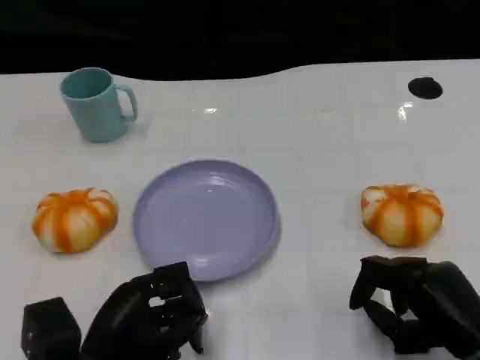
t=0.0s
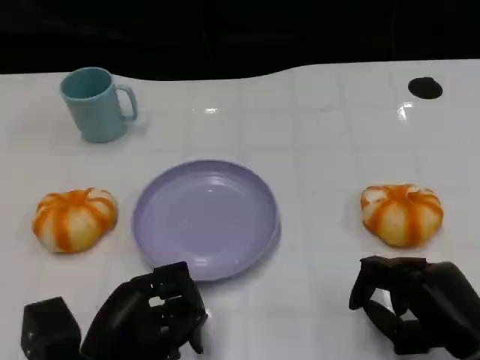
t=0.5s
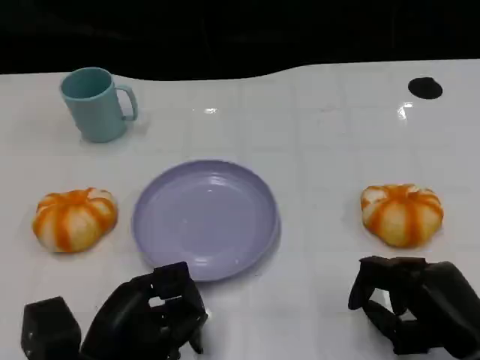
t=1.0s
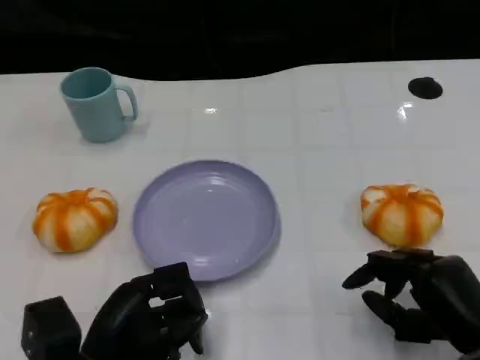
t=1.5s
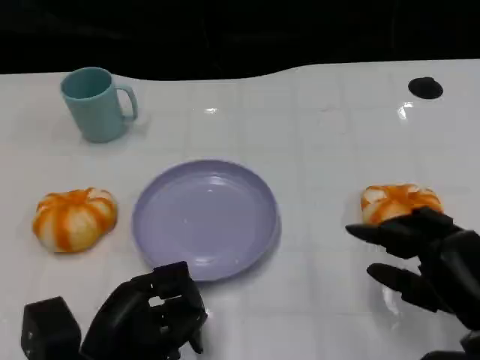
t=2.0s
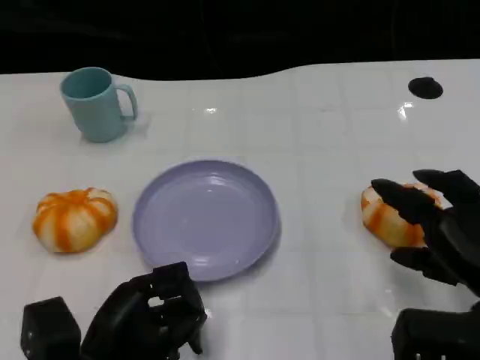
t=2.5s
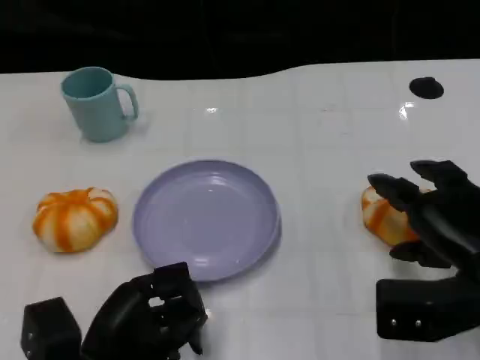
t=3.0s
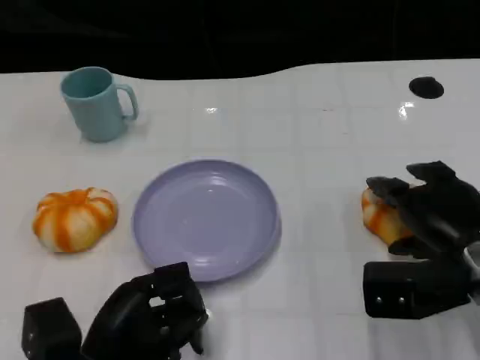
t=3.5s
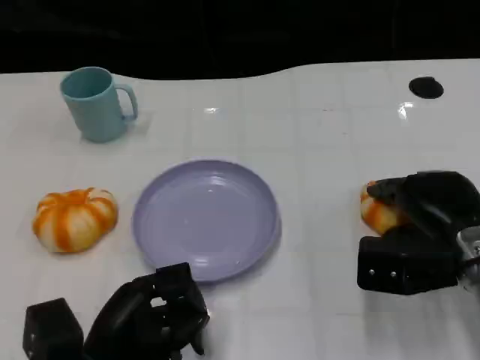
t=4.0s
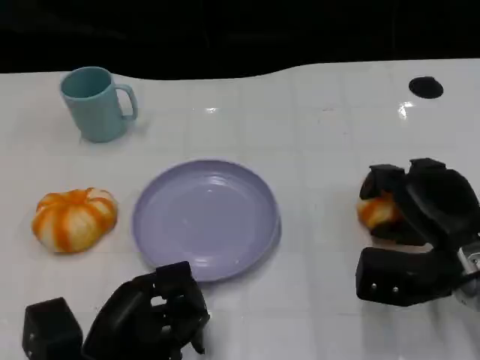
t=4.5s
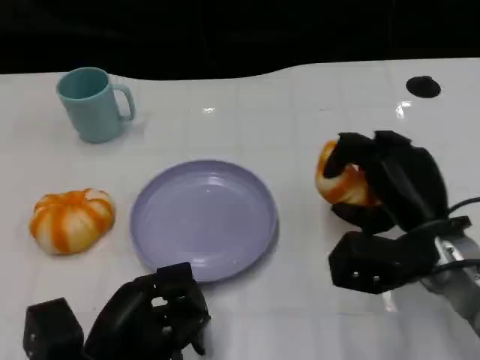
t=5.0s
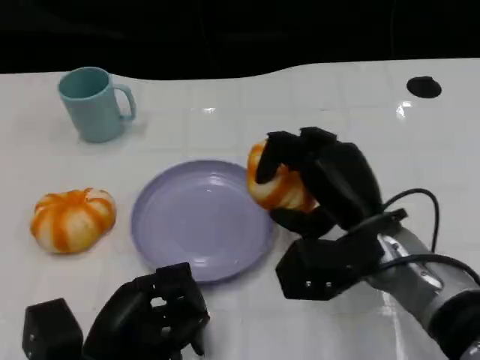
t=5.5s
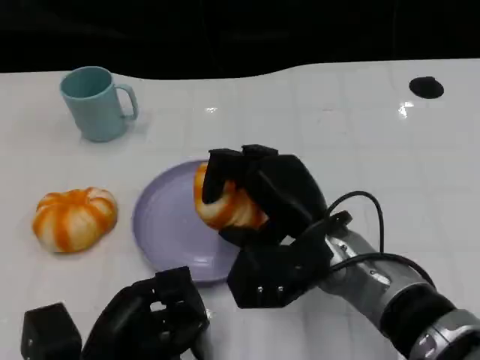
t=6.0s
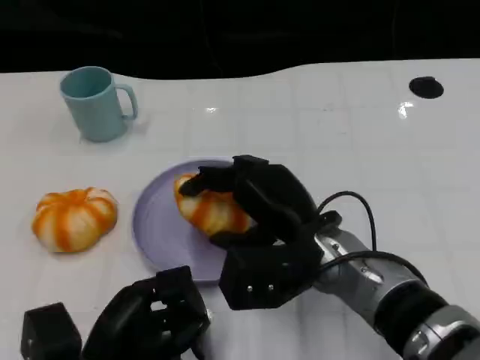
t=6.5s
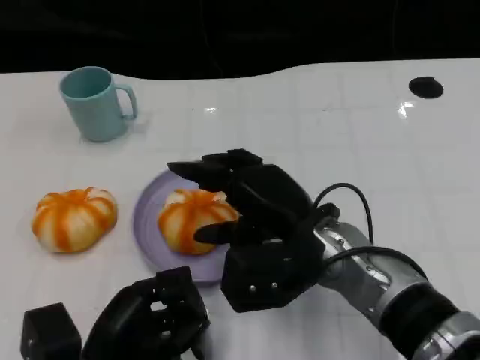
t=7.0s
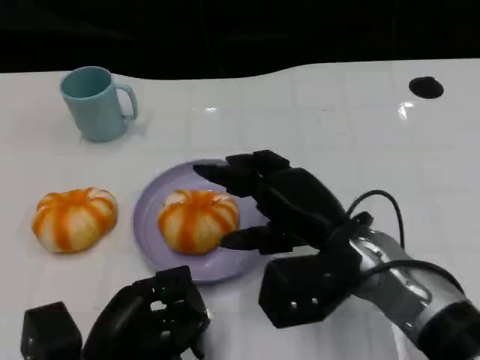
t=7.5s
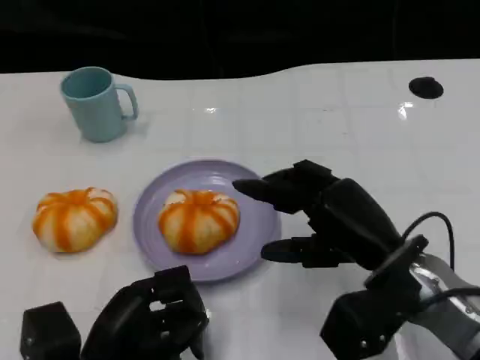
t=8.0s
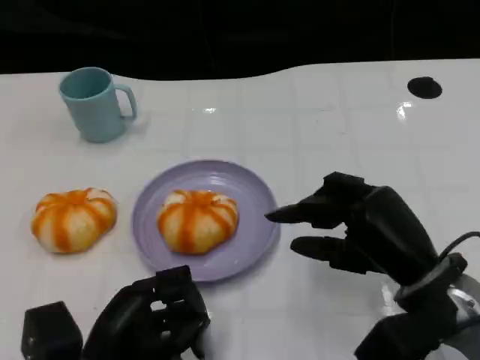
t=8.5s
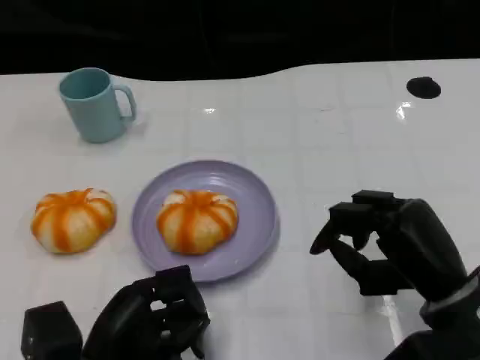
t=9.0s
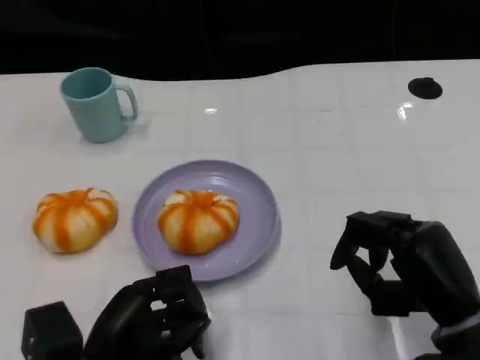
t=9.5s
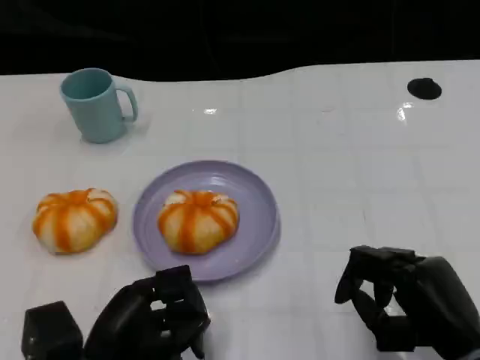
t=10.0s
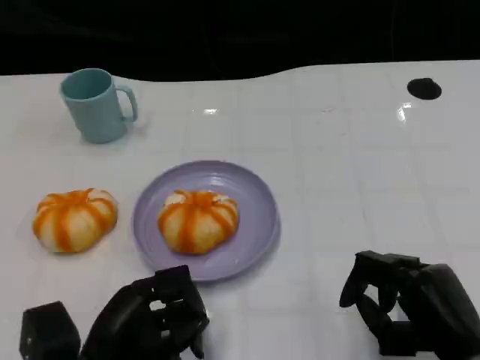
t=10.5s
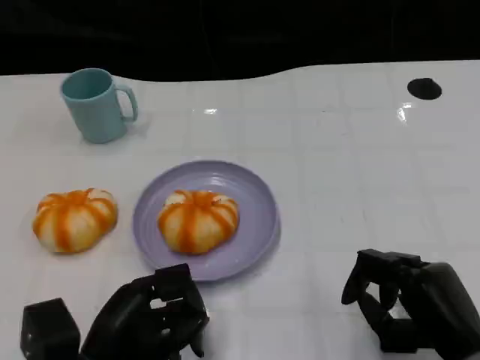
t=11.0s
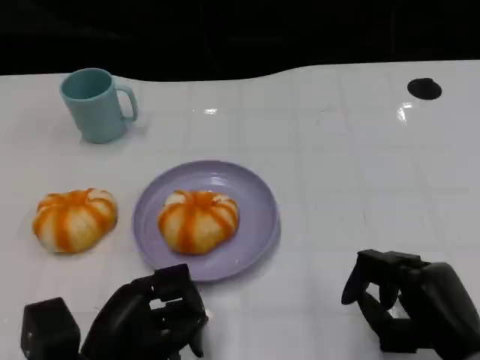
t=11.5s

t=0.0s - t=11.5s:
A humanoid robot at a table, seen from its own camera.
Task of the whole recording: Grasp the bread from the table and place it into the plate.
t=0.0s - t=2.0s: There are only small adjustments of the hands.
t=2.0s - t=4.0s: The right hand travels forward by about 10 cm.
t=4.0s - t=6.0s: The right hand heads to the left, covering approximately 15 cm.
t=6.0s - t=7.5s: The hands make only small movements.
t=7.5s - t=9.5s: The right hand goes roughly 10 cm to the right and backward.
t=9.5s - t=11.5s: The hands move only a little.

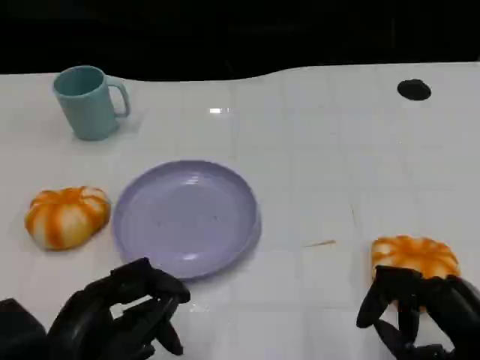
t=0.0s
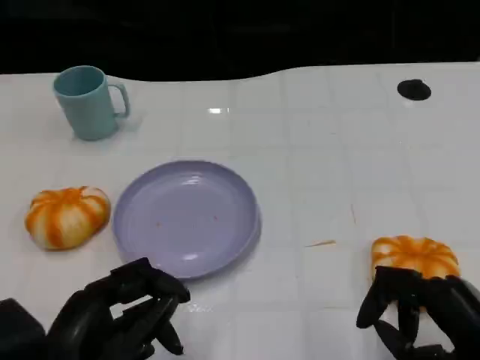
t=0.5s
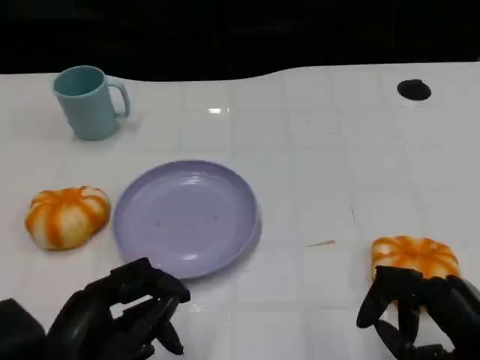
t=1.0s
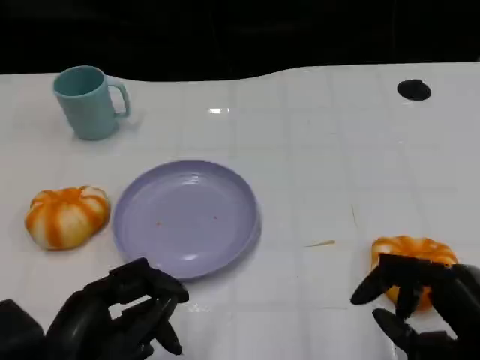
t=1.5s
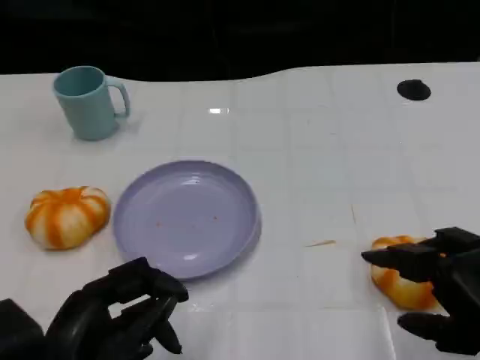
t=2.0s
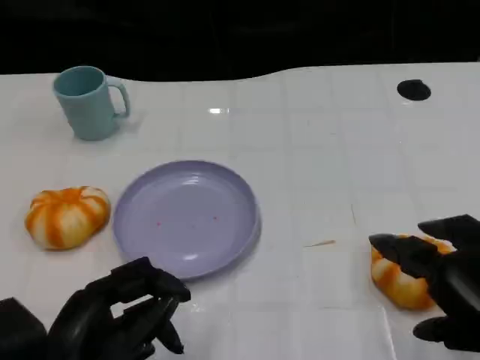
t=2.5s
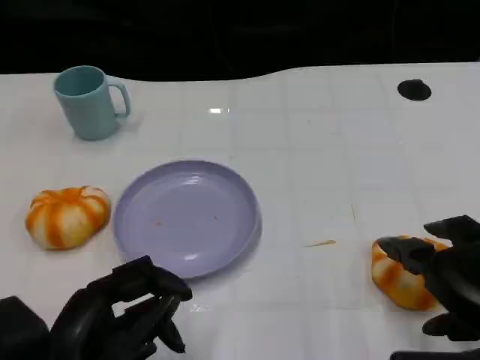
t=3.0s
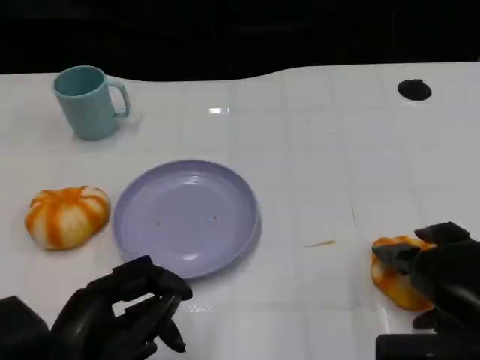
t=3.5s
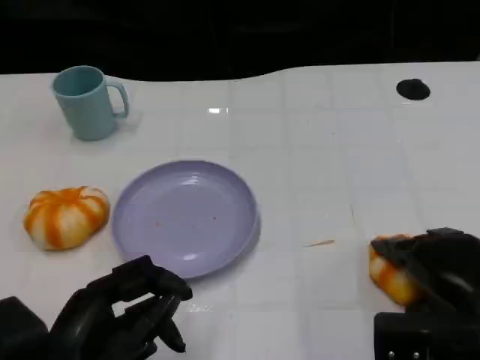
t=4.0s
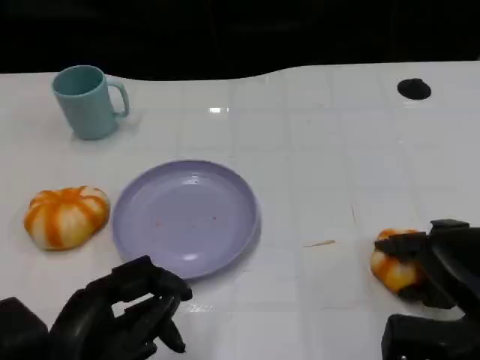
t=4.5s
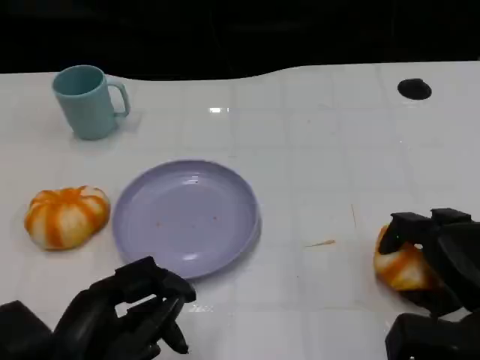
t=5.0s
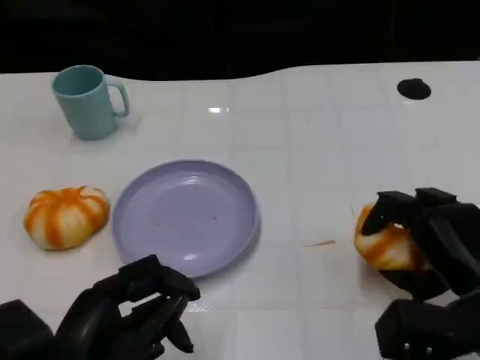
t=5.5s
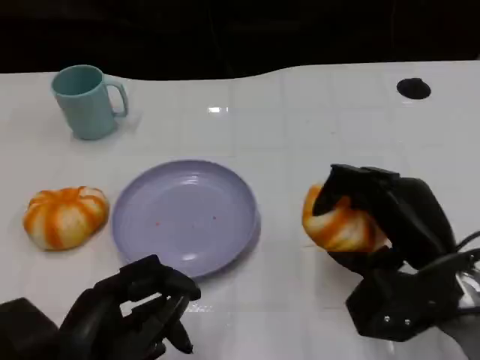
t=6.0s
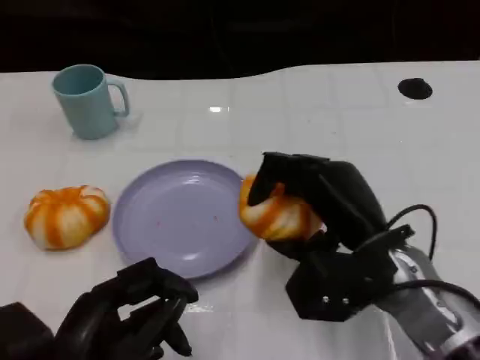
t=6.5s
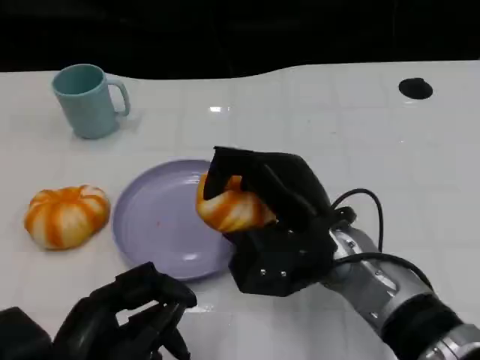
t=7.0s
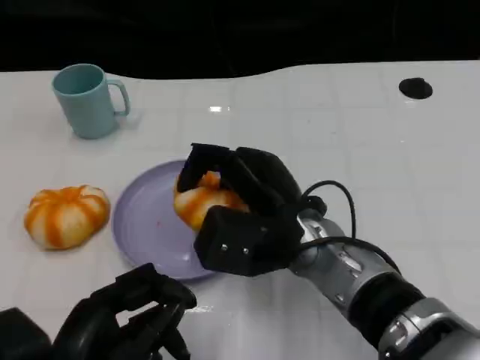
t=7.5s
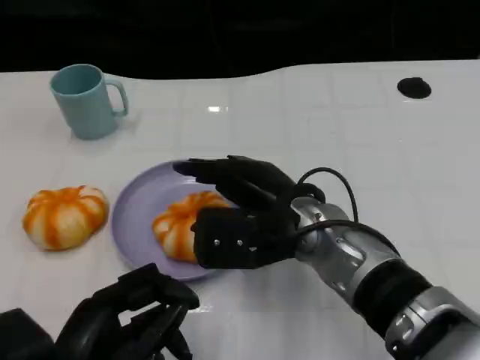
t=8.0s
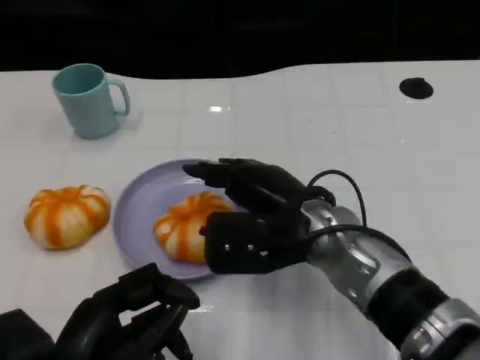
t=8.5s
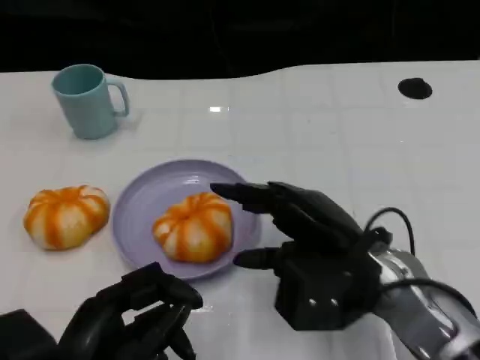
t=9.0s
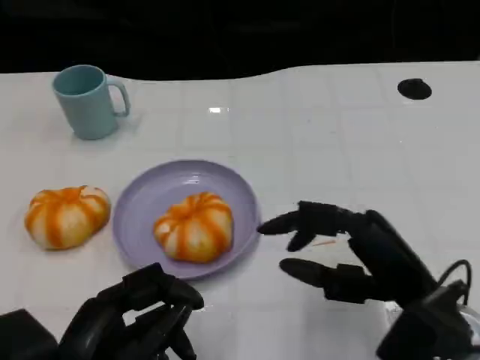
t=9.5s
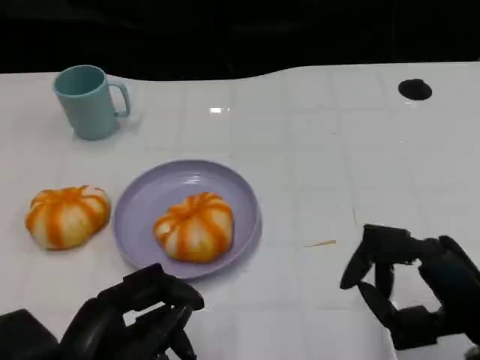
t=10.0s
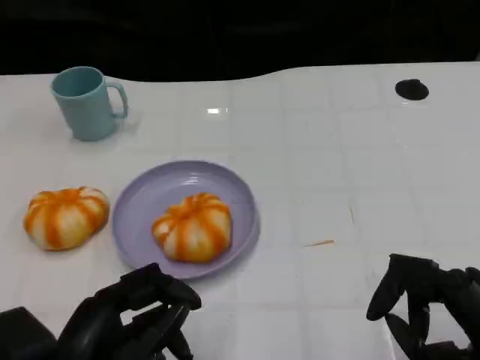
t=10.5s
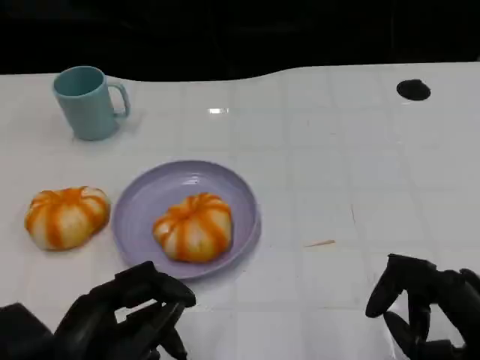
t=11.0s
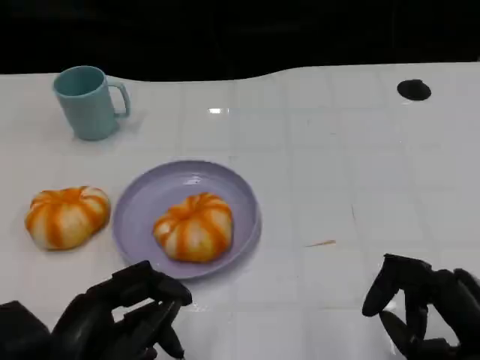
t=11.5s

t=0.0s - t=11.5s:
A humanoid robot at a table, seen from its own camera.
Task of the whole recording: Grasp the bread from the table and place it into the plate.
t=0.0s - t=2.0s: The right hand goes some 5 cm upward.
t=2.0s - t=4.0s: The right hand goes approximately 10 cm forward and downward.
t=4.0s - t=6.0s: The right hand is displaced to the left by roughly 5 cm.
t=6.0s - t=7.5s: The right hand moves to the left, some 15 cm.
t=7.5s - t=9.5s: The right hand is displaced to the right and backward by approximately 15 cm.
t=9.5s - t=11.5s: The right hand goes about 10 cm backward and to the right.

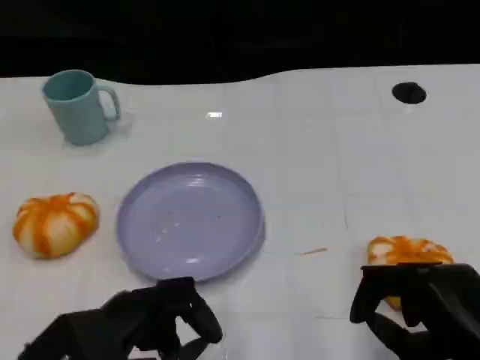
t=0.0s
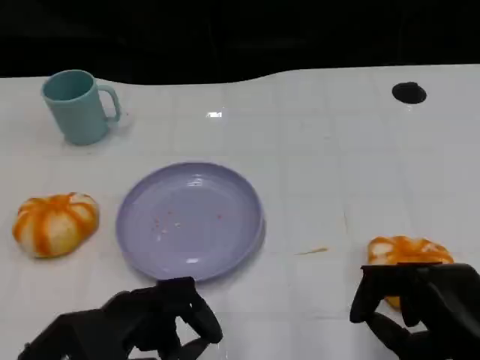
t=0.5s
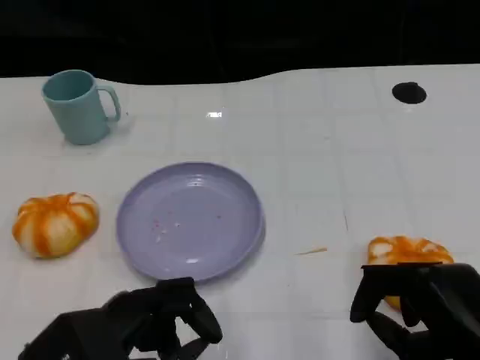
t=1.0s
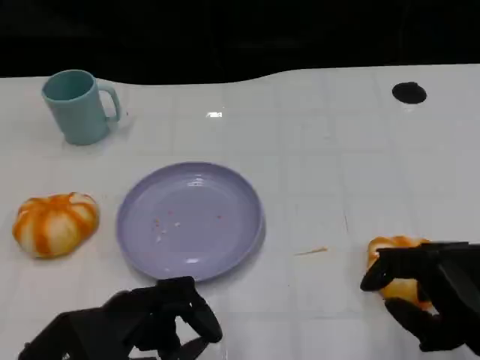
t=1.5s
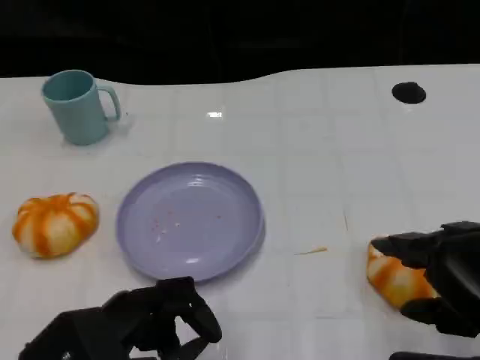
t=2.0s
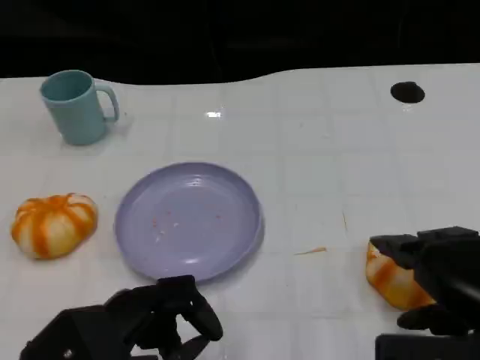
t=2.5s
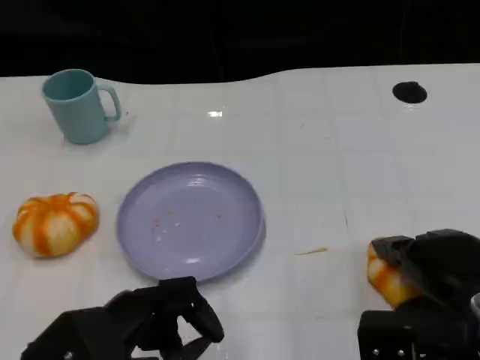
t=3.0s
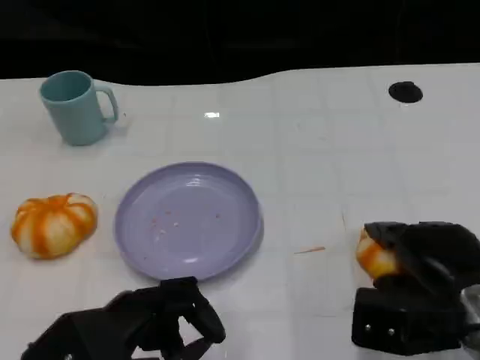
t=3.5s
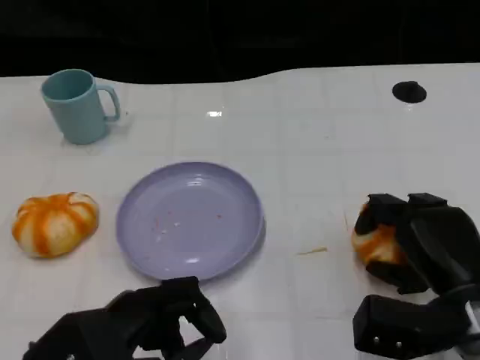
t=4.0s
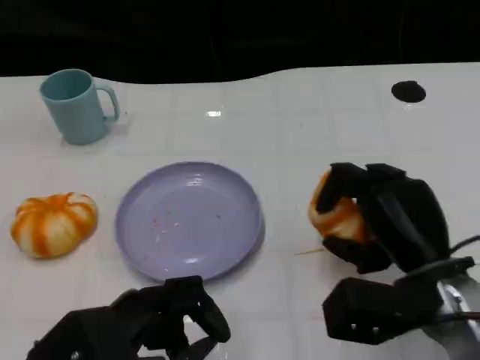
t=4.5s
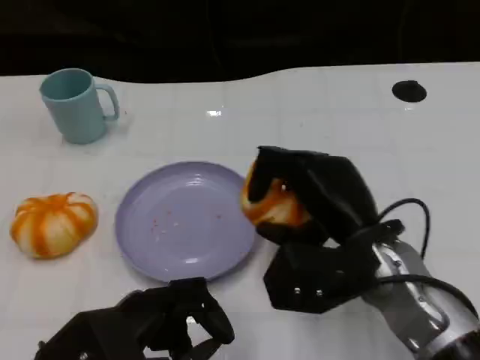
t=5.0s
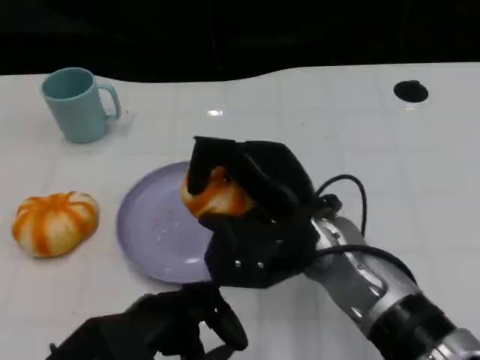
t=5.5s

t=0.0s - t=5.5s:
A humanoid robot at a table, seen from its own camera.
Task of the whole recording: Grasp the bread from the table and place it into the plate.
t=0.0s - t=2.0s: The right hand travels upward by some 5 cm.
t=2.0s - t=3.5s: The right hand heads downward and forward, covering some 10 cm.
t=3.5s - t=5.5s: The right hand travels to the left by some 15 cm.
